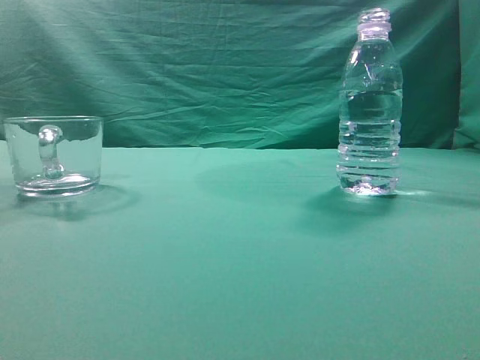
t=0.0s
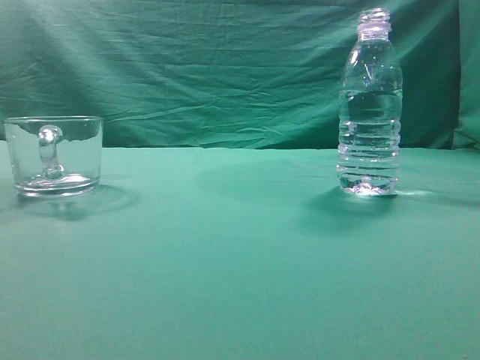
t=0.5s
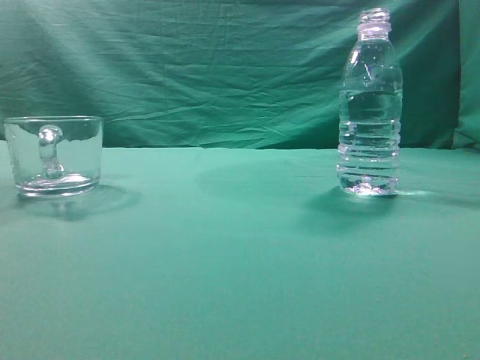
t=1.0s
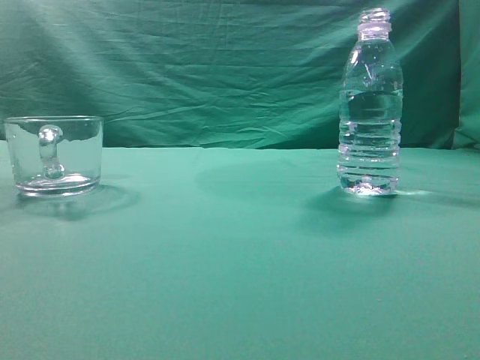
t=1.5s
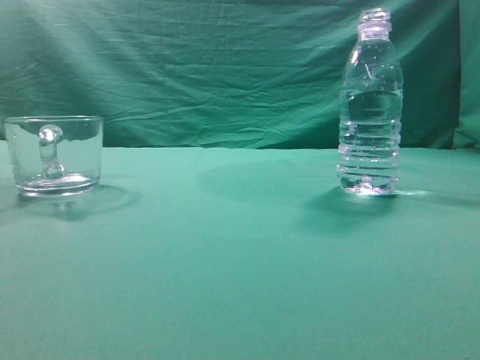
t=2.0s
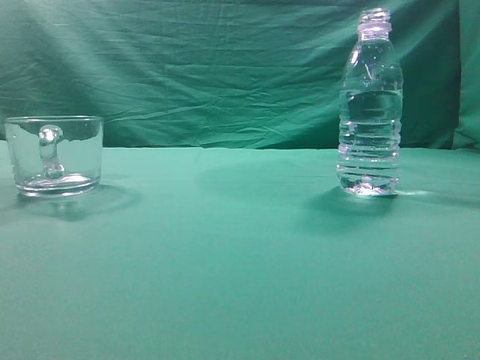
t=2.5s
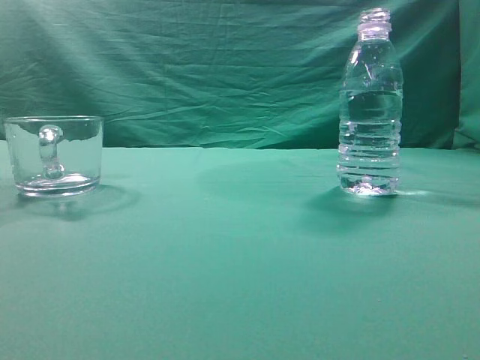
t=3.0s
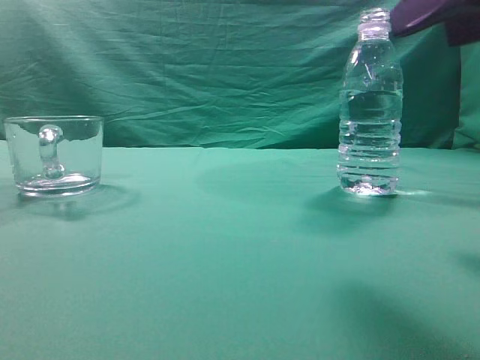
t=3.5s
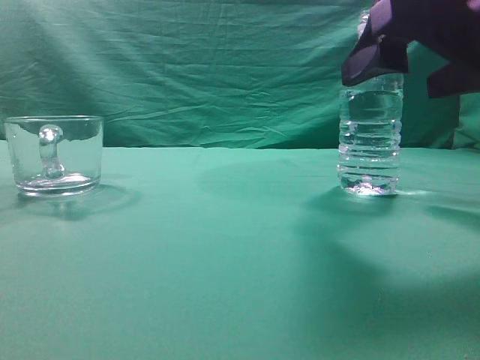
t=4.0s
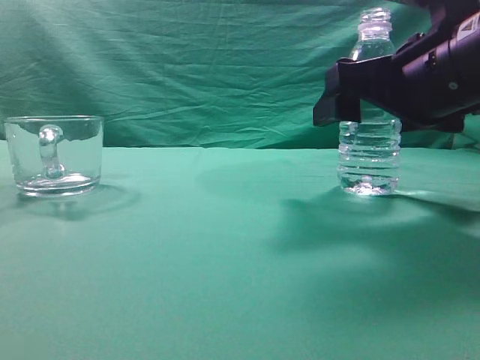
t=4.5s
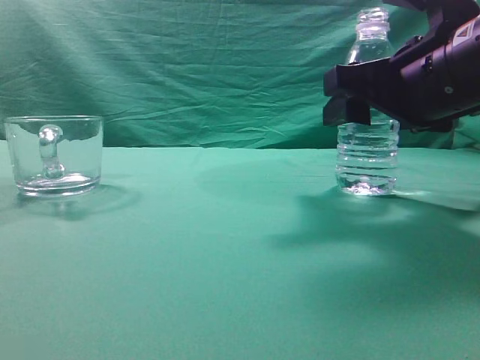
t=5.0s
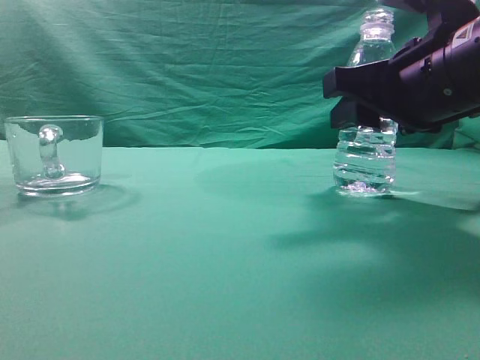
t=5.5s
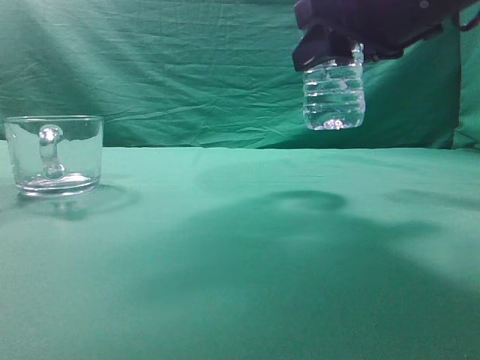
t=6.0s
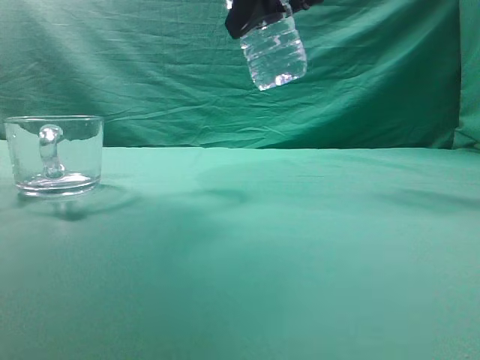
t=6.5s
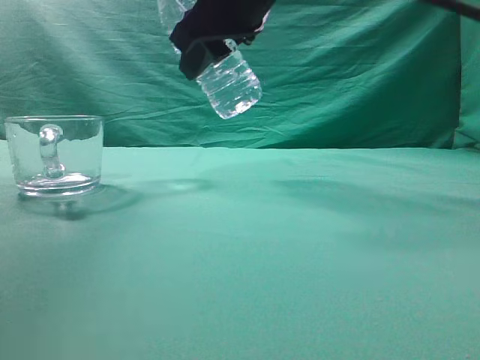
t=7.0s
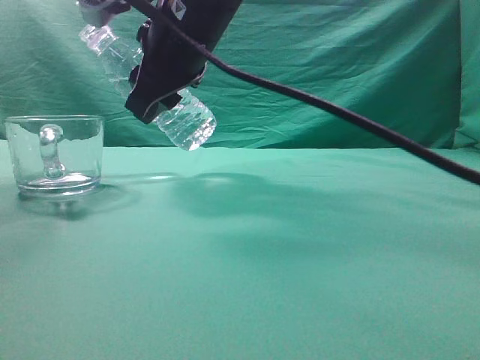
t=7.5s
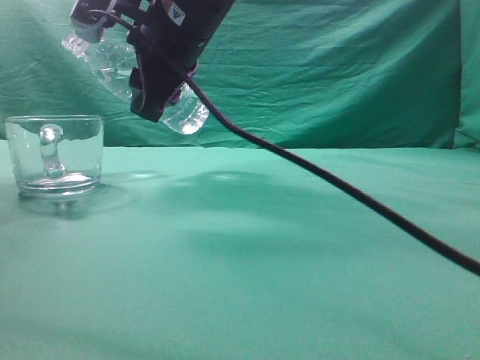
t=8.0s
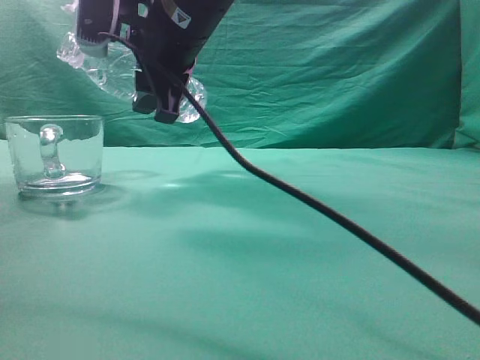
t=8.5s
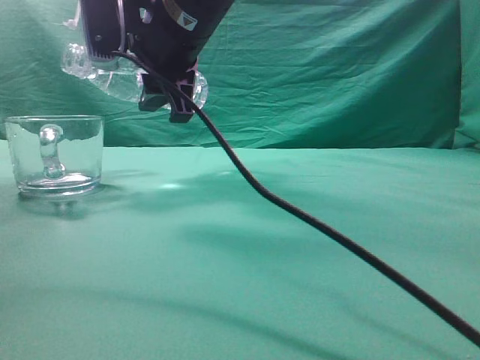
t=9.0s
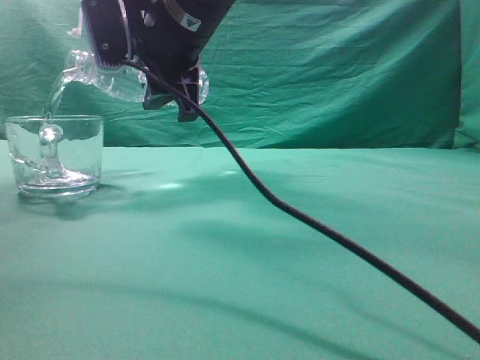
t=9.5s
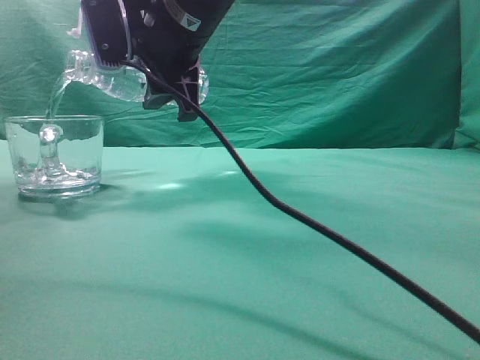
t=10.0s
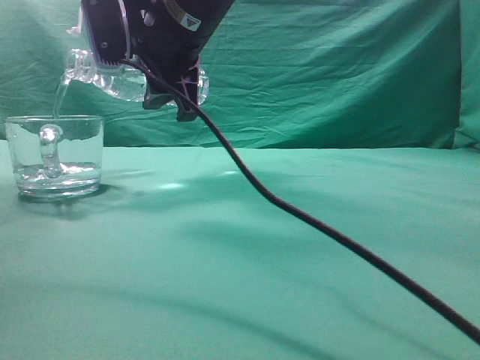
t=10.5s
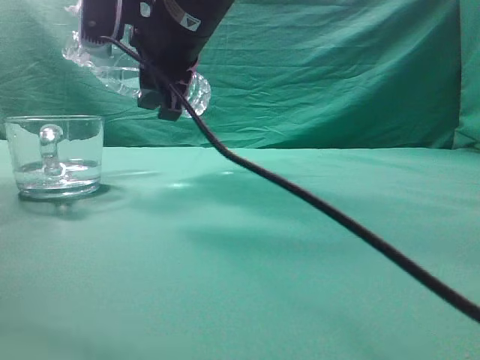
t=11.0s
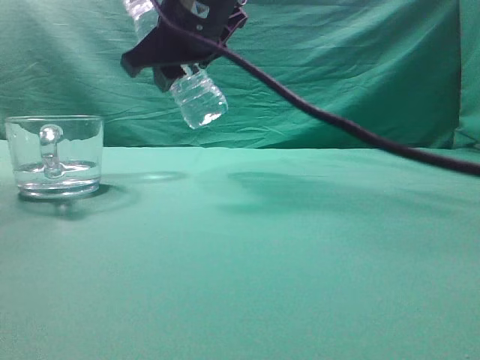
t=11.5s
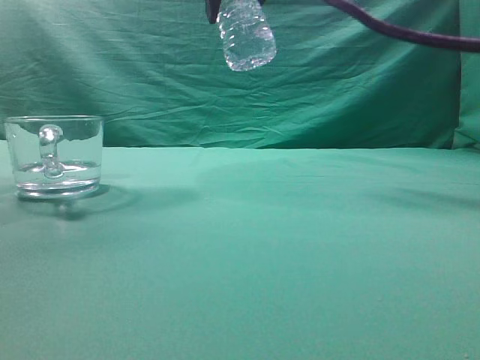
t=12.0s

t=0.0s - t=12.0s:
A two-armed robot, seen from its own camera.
Task of the whole recording: pick up the water bottle and pour the water in it into the glass.
Step, t=0.0s - t=5.5s: Grasp the mineral water bottle.
Step, t=6.0s - t=11.5s: Pour water into the teacup.
t=2.0s - t=4.0s: The right gripper heads forward and to the left, covering about 20 cm, and opens its fingers.
t=4.0s - t=6.0s: The right gripper goes some 5 cm forward, and closes.
t=6.0s - t=8.0s: The right gripper heads to the left and forward, covering approximately 20 cm.
t=10.0s - t=12.0s: The right gripper is displaced upward and to the right by about 10 cm.

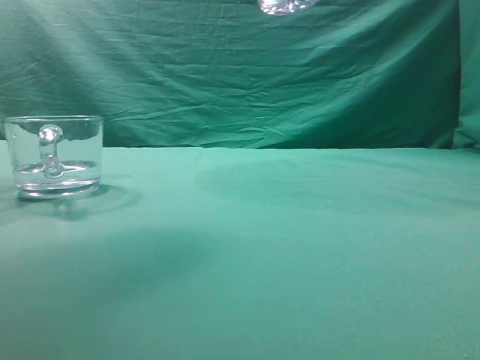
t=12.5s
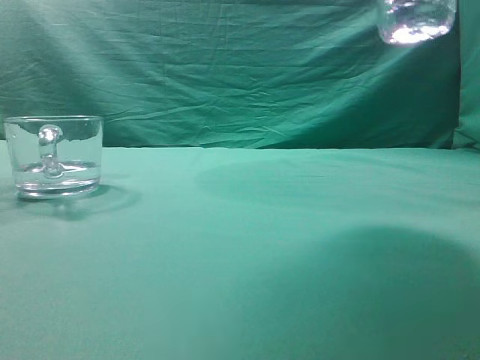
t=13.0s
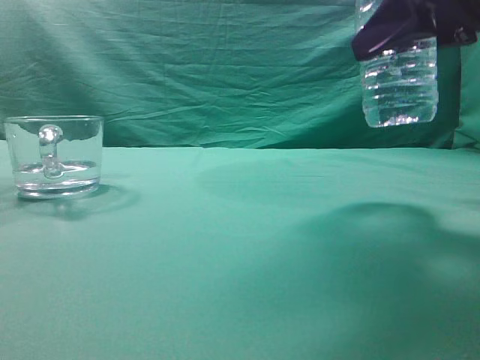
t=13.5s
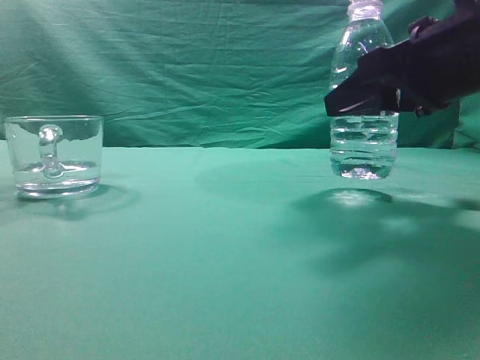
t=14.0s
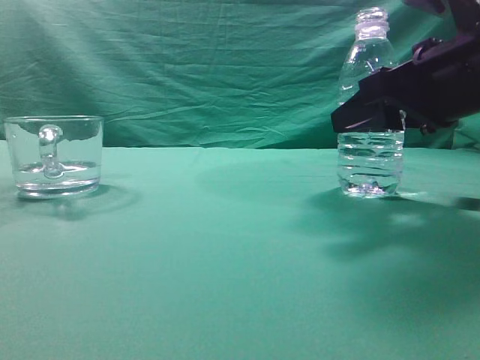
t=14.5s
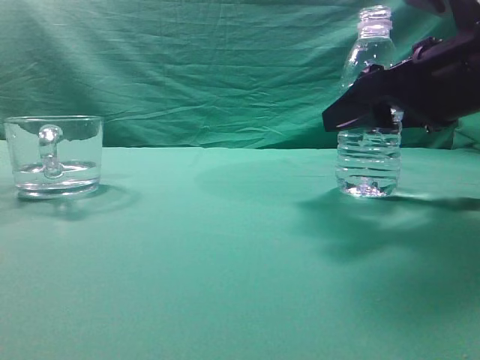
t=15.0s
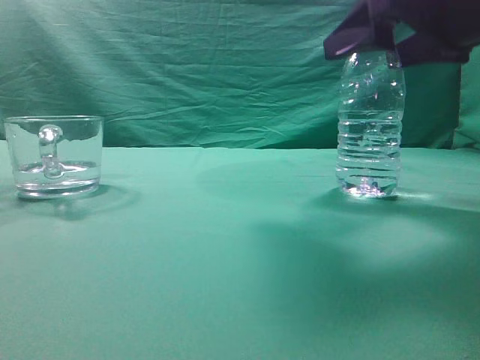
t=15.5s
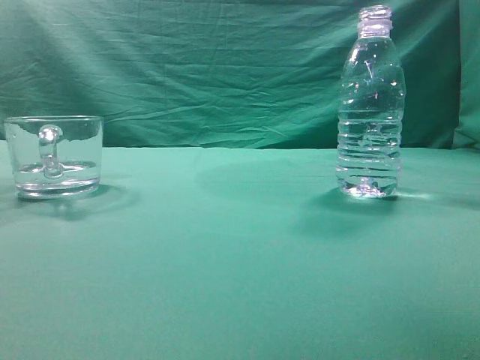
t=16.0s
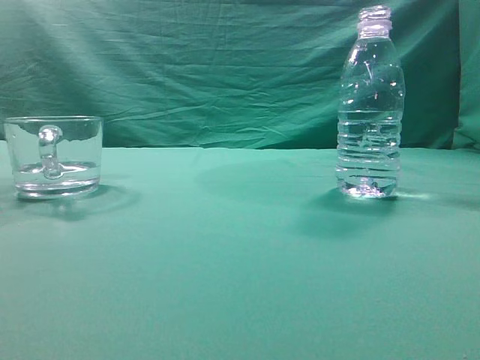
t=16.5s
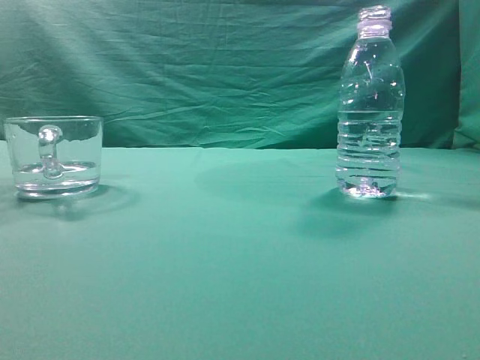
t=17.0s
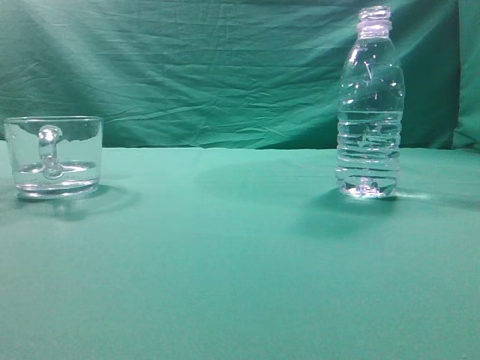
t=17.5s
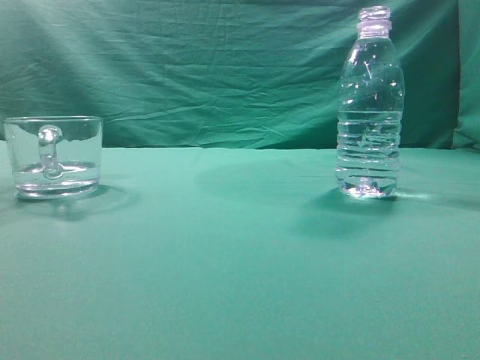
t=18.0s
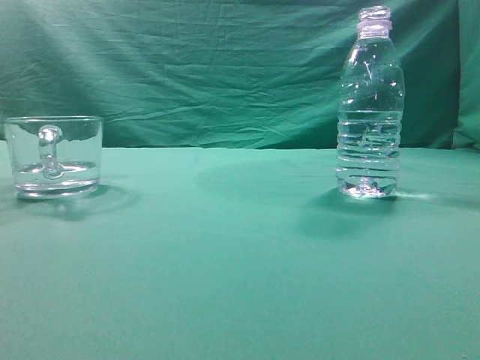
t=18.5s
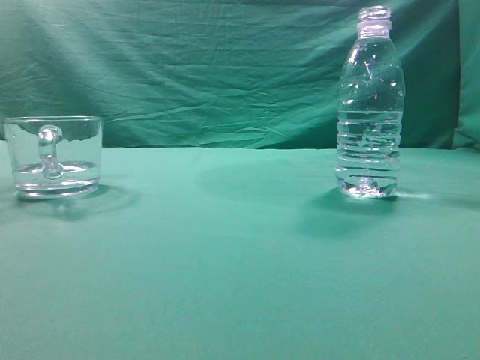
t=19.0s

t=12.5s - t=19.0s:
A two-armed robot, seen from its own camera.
Task of the whole recording: pick up the water bottle and pour the water in it into the glass.
t=12.5s - t=14.5s: The right gripper moves downward and to the right, approximately 20 cm.
t=14.5s - t=17.0s: The right gripper shifts roughly 35 cm upward and backward, and closes up.
